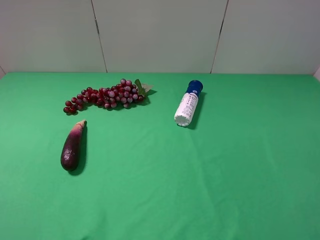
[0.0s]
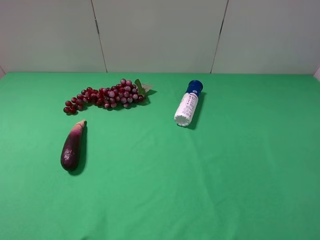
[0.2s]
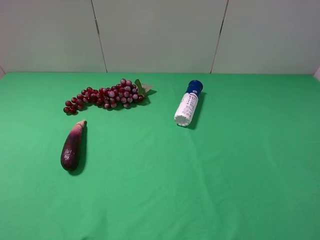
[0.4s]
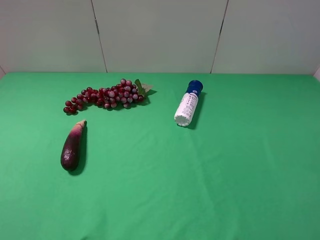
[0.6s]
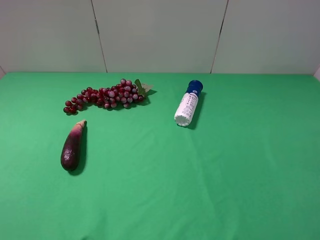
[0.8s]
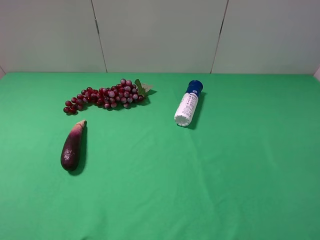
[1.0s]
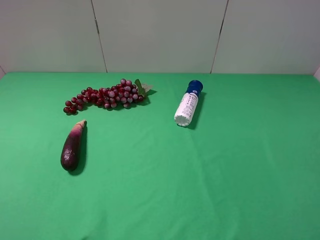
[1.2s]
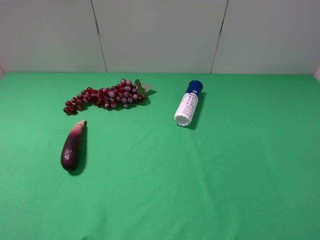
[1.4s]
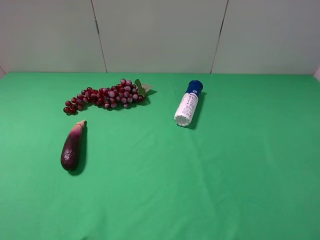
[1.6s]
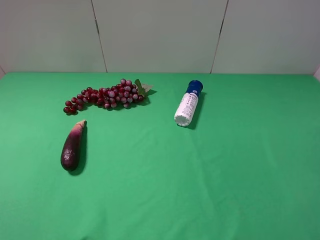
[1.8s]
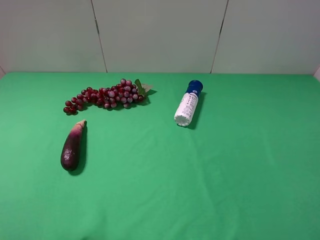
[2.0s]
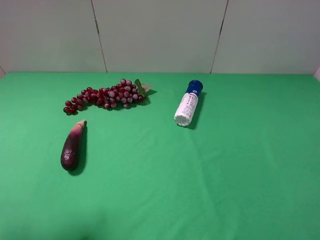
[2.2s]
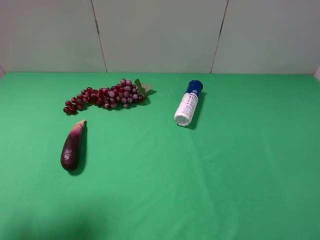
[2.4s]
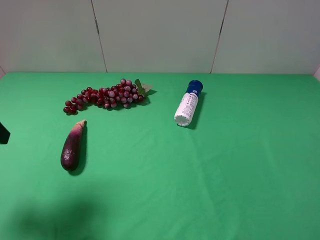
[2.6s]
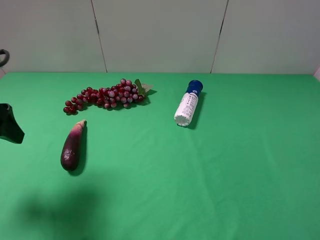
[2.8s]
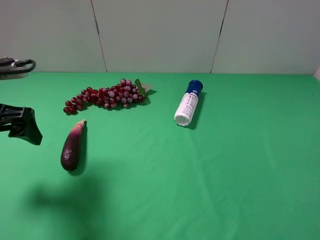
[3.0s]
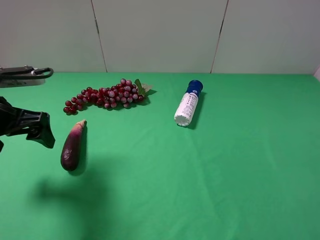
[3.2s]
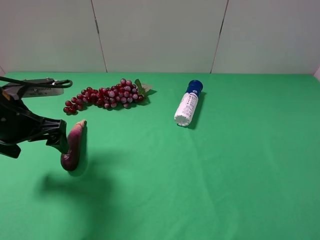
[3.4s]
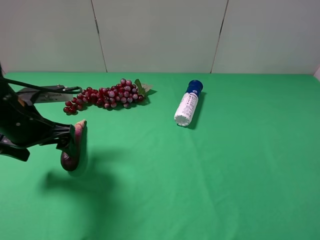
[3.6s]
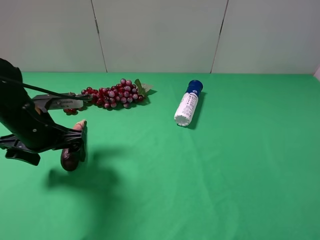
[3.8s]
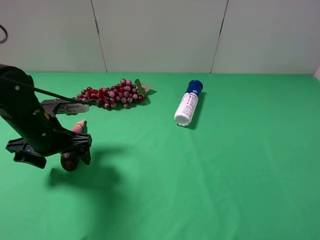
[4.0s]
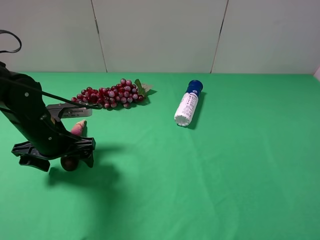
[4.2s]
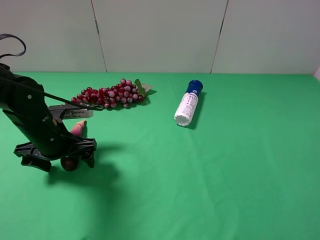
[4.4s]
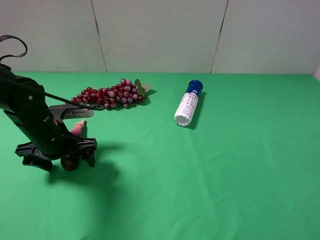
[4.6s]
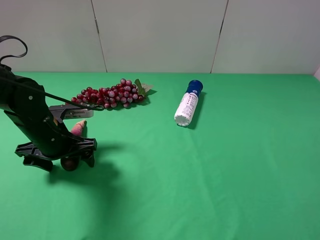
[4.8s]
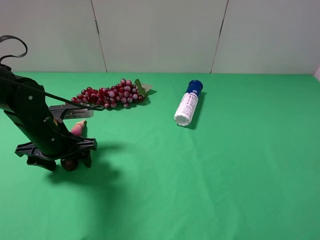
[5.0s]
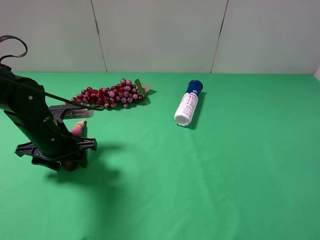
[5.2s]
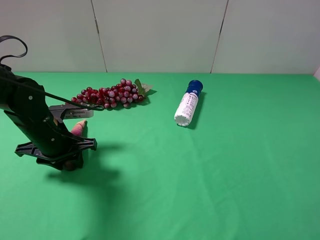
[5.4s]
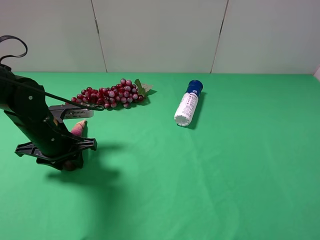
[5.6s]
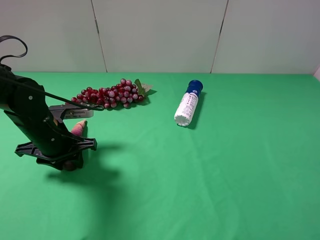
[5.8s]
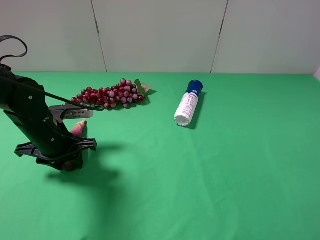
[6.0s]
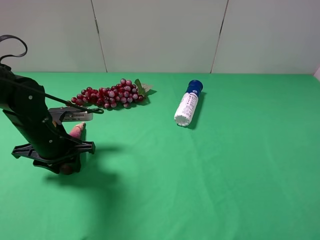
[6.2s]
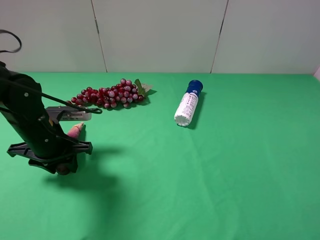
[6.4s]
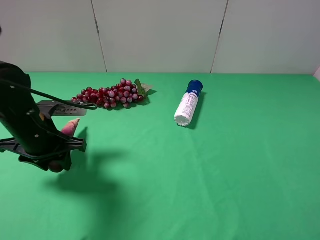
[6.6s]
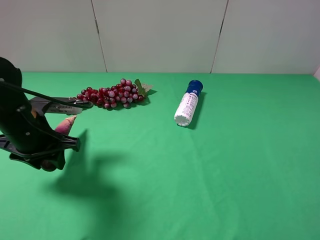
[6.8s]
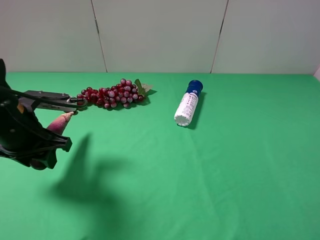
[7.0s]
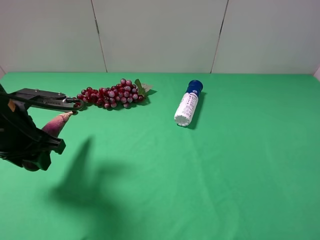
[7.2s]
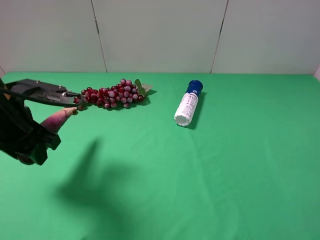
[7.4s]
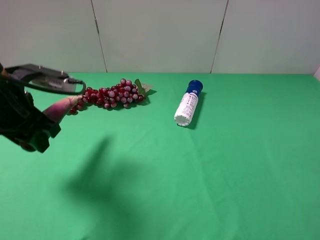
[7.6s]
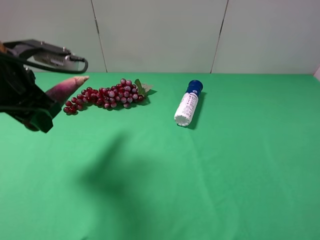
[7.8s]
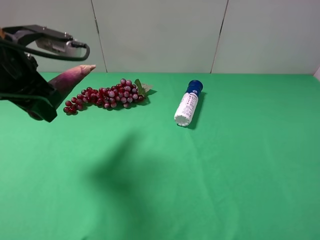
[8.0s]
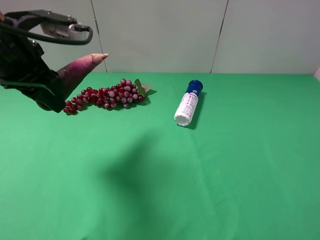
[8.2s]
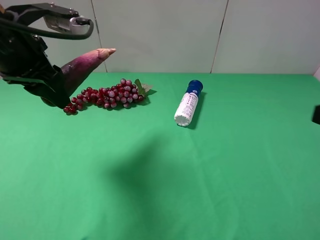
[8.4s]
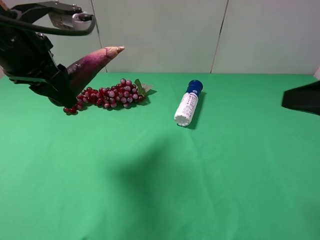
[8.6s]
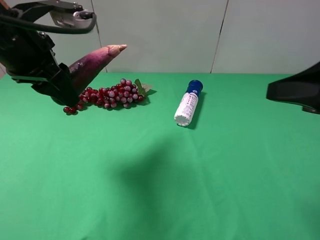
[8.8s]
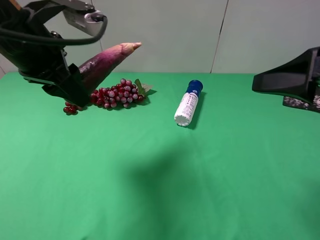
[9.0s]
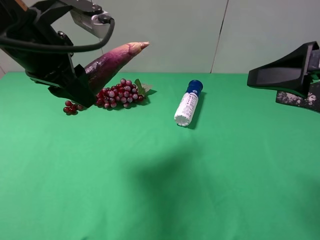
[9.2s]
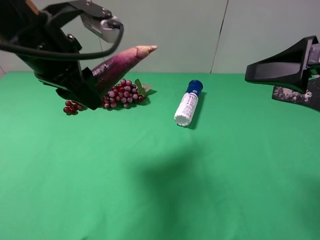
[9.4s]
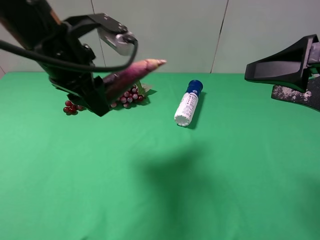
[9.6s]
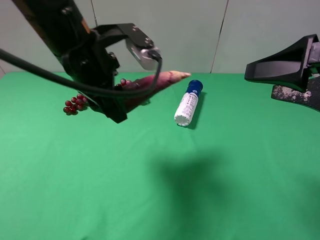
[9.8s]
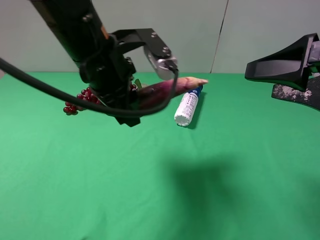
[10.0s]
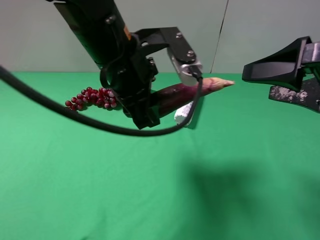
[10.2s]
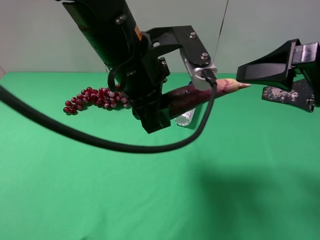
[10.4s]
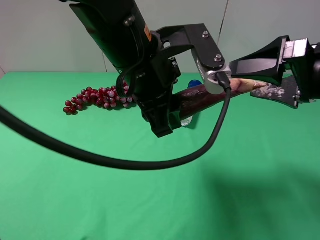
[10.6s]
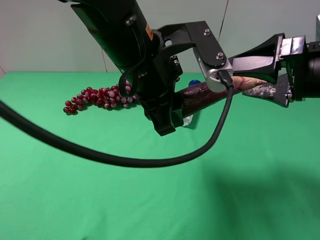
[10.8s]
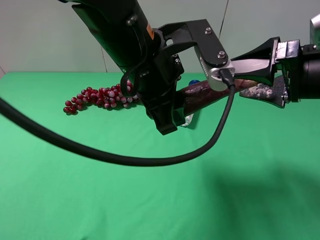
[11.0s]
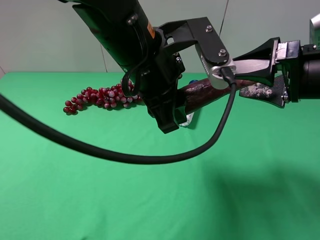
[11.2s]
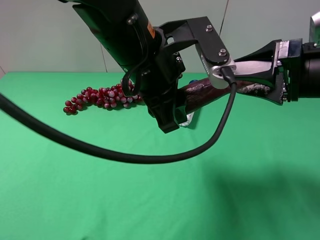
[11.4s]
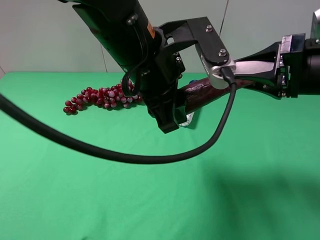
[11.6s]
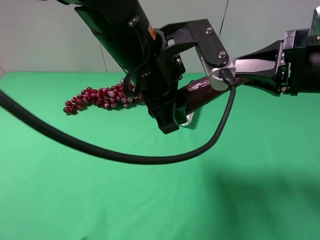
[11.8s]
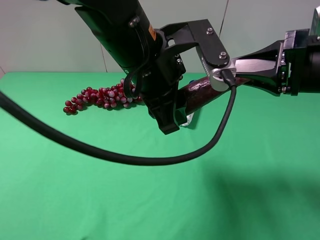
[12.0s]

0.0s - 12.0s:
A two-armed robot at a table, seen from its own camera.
Task of the whole recording: use the left gripper to pick up the item and transfer it from the left gripper to the right gripper.
Step, 0.0s - 5.6s: Use the left gripper to grab the eggplant on the left side of the table.
1.6s - 3.0s: The left gripper travels forward and downward by roughly 20 cm.
3.0s - 4.4s: The left gripper goes roughly 15 cm downward and to the right.
4.4s - 6.0s: The left gripper closes up.
6.0s - 7.6s: The left gripper shifts about 10 cm upward.
7.6s - 9.0s: The right gripper goes approximately 15 cm forward. The left gripper goes about 10 cm upward and to the right.
9.0s - 10.4s: The left gripper is displaced to the right by roughly 15 cm.
10.4s - 12.0s: The right gripper closes.

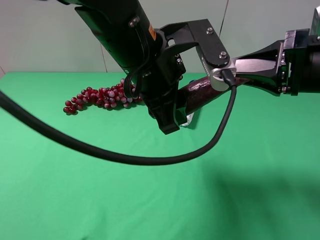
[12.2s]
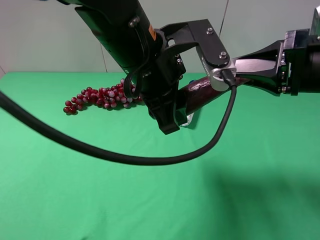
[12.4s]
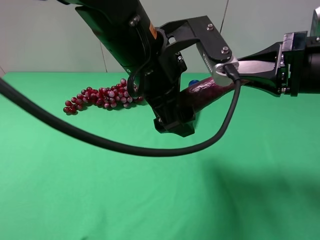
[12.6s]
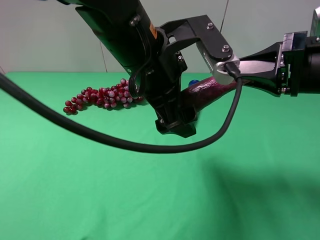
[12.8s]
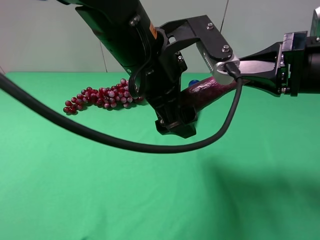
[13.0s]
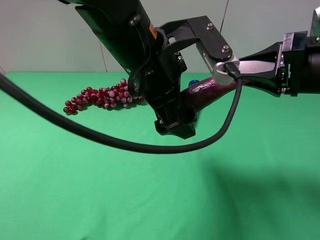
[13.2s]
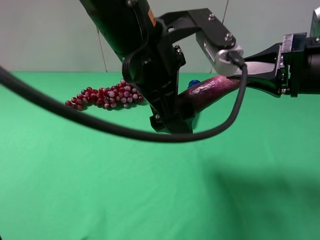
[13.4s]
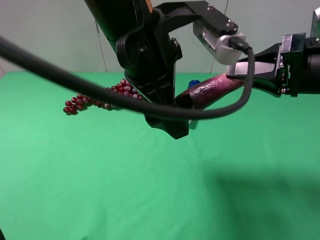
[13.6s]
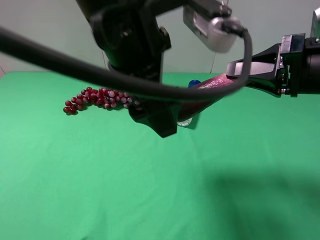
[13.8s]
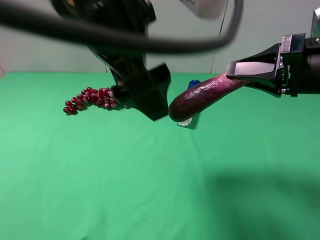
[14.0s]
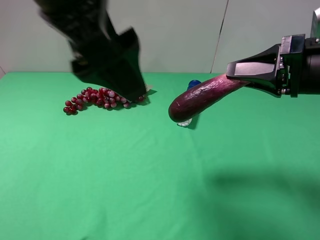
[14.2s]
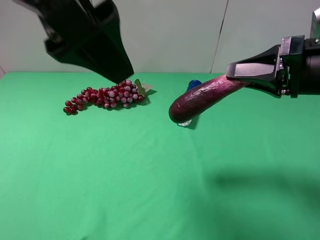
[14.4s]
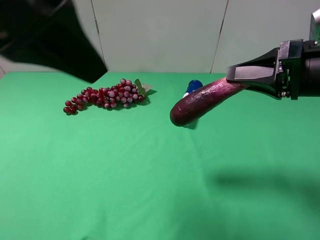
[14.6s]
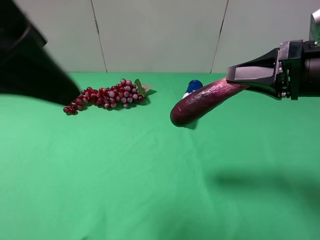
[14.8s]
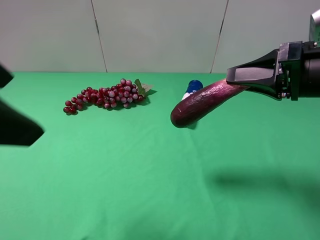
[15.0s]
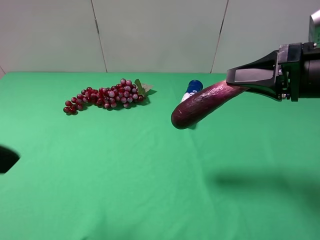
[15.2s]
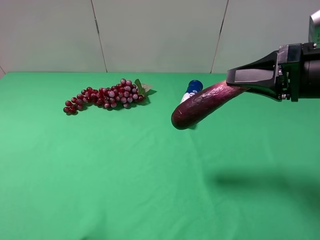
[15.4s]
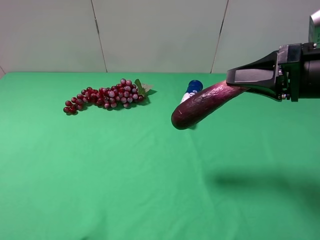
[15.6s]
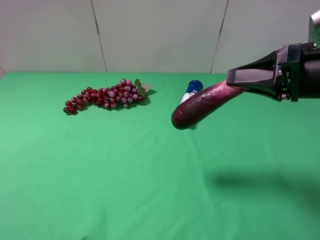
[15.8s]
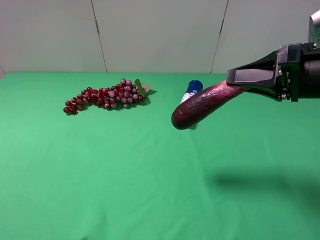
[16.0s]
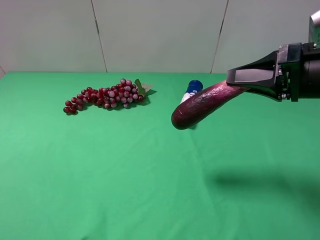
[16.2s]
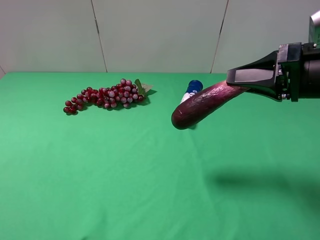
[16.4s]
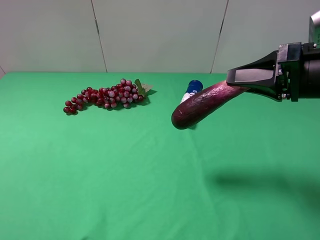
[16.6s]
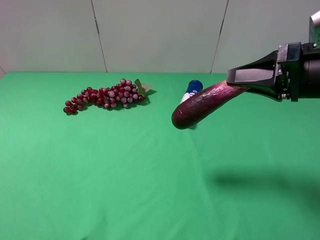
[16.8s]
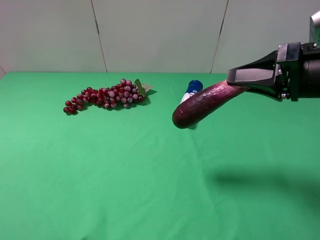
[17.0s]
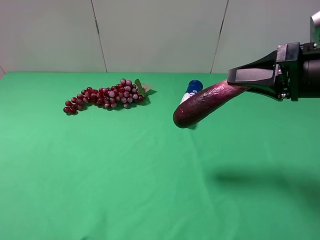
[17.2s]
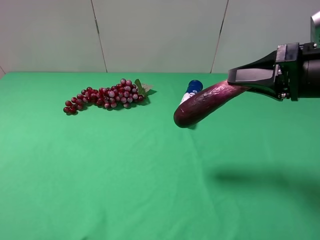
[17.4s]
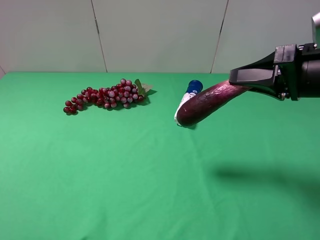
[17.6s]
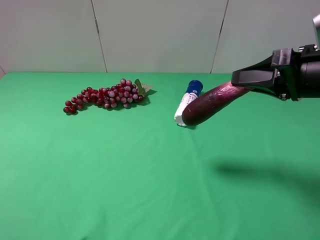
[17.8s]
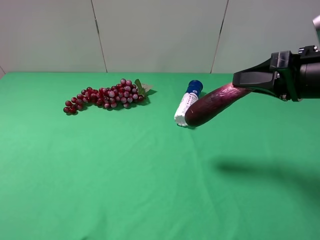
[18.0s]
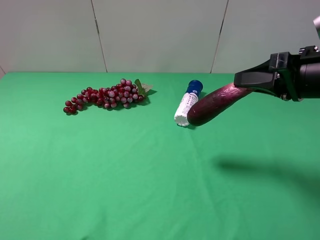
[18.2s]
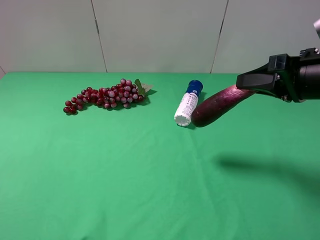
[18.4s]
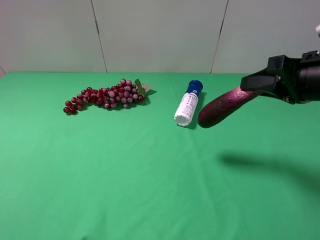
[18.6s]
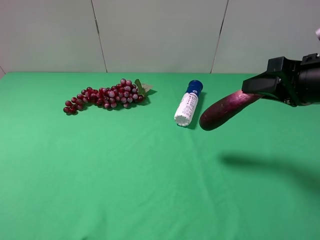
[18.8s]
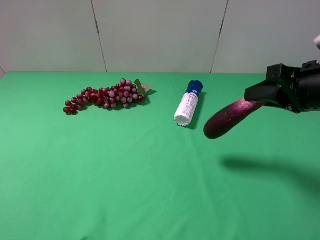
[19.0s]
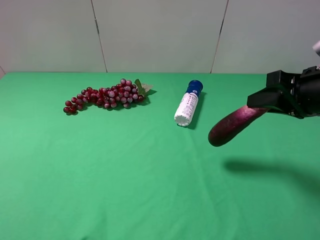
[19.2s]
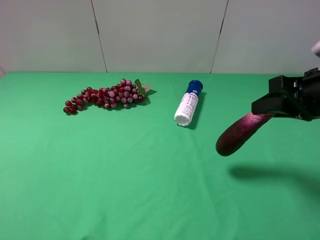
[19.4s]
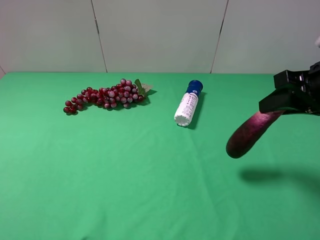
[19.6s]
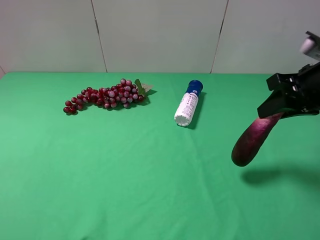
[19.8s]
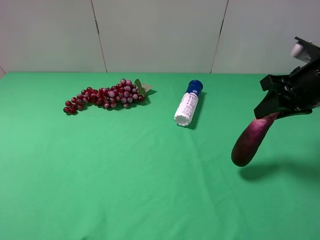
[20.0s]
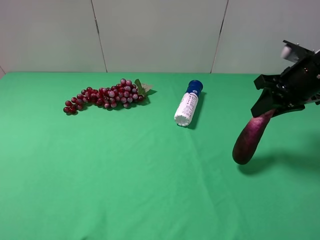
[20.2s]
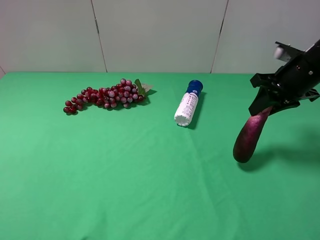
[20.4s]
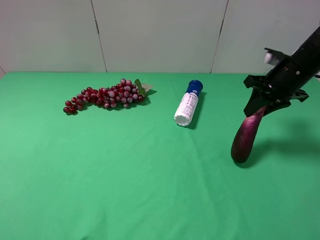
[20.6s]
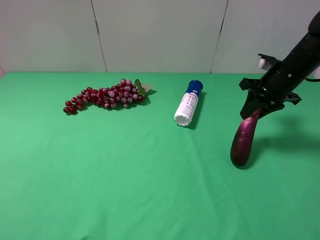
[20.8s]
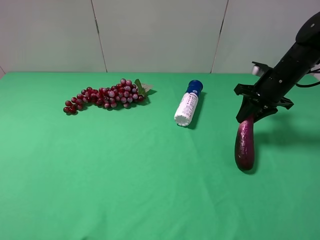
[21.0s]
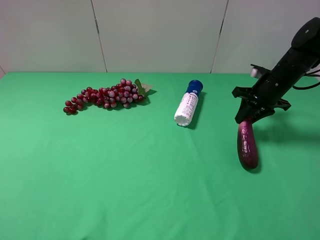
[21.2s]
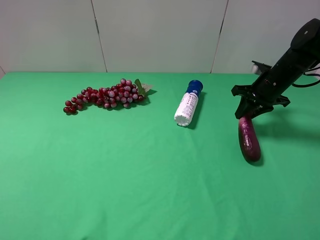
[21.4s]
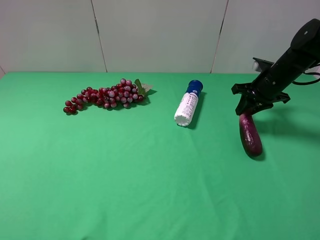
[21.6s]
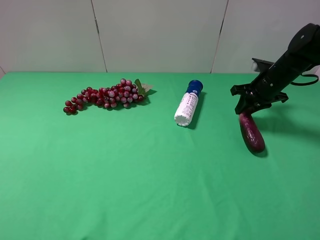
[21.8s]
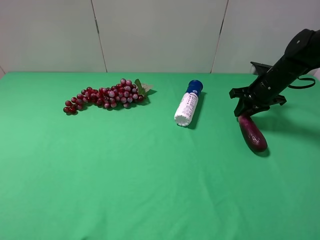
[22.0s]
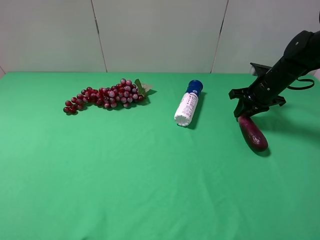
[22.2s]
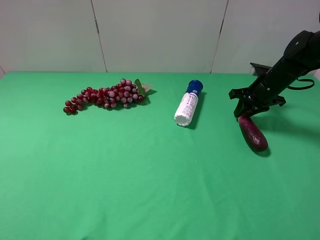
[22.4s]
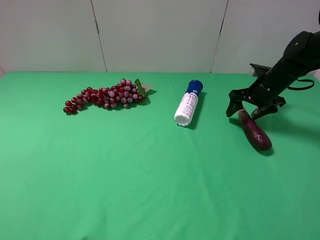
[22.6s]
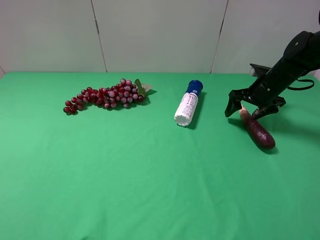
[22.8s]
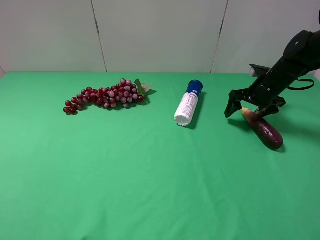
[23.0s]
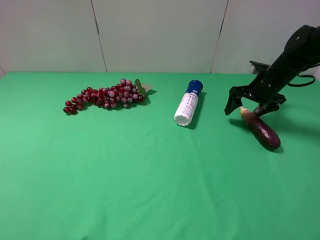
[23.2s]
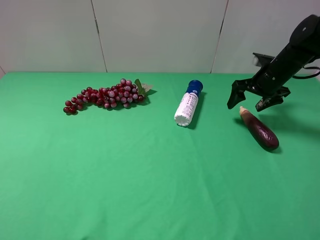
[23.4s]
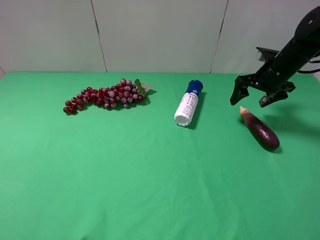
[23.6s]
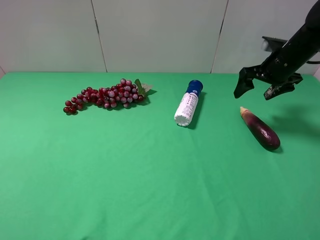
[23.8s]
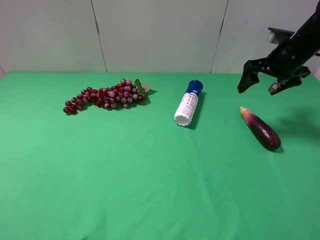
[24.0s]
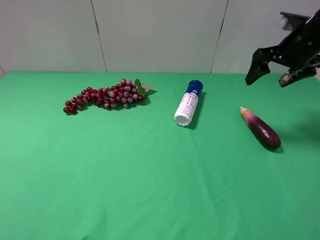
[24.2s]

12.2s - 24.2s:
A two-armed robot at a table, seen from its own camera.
Task of the whole recording: use the left gripper to pick up the item and transfer it from the left gripper to the right gripper.
Step, 13.4s - 23.6s: The right gripper places eggplant on the right side of the table.
12.2s - 13.8s: The left gripper is displaced upward by roughly 5 cm, and opens.
13.8s - 15.2s: The left gripper is displaced to the left and backward by roughly 20 cm.
15.2s - 16.6s: The left gripper heads to the left, downward and backward, covering some 15 cm.
19.8s - 21.2s: The right gripper goes roughly 15 cm forward and downward.
21.2s - 22.6s: The right gripper opens.
22.6s - 24.2s: The right gripper travels upward by some 15 cm.
